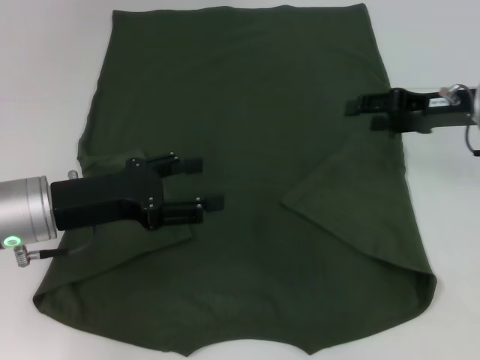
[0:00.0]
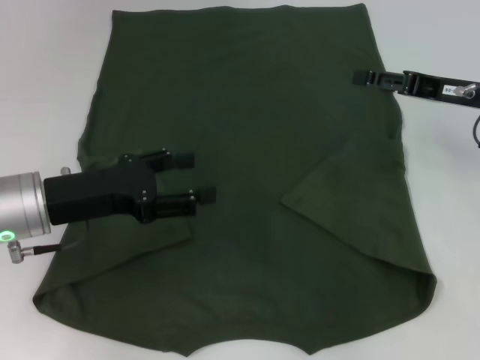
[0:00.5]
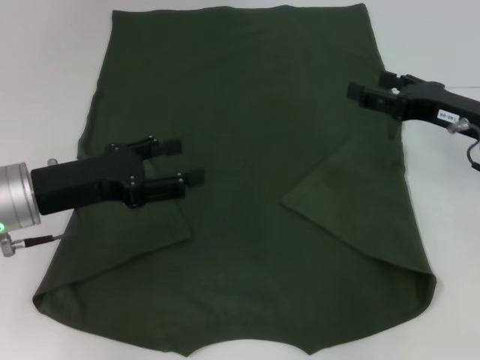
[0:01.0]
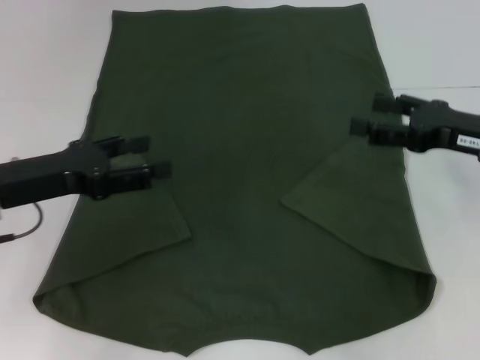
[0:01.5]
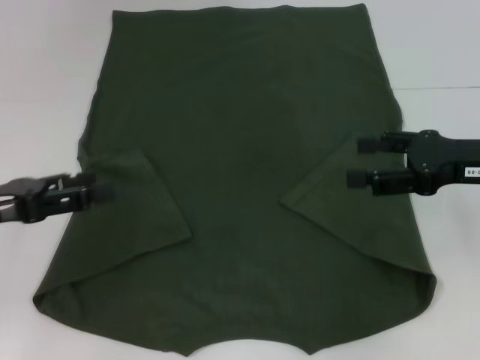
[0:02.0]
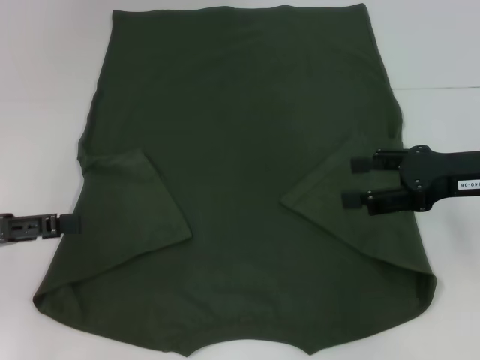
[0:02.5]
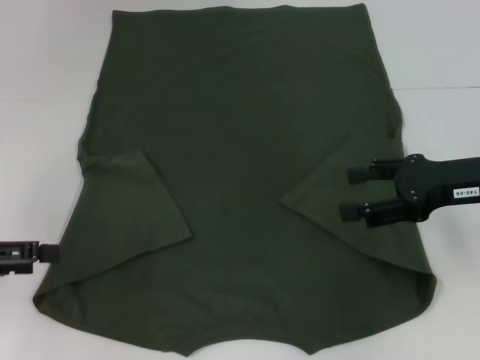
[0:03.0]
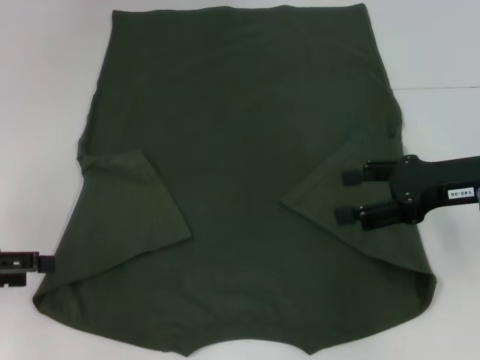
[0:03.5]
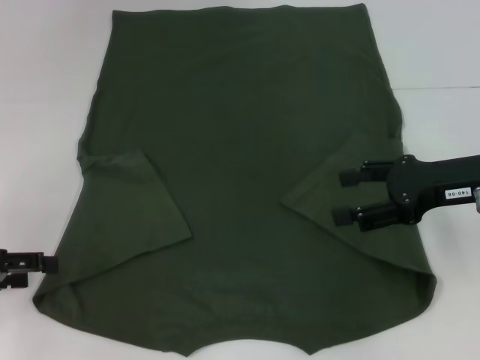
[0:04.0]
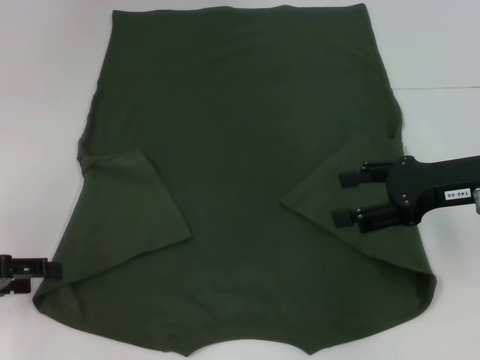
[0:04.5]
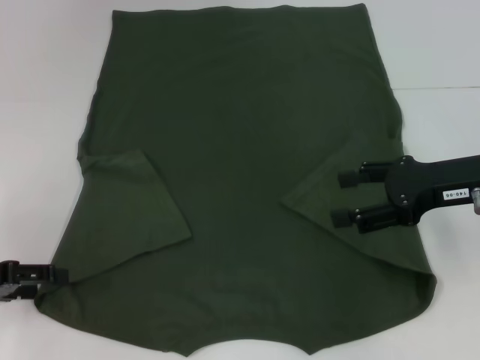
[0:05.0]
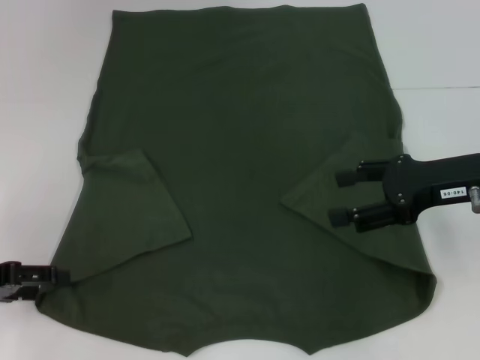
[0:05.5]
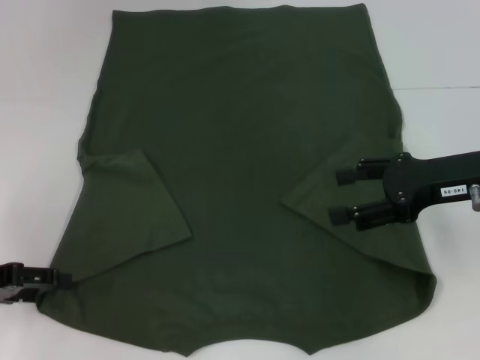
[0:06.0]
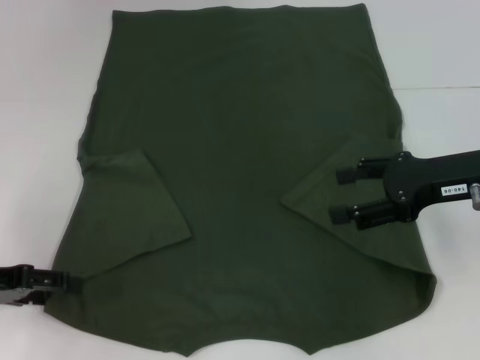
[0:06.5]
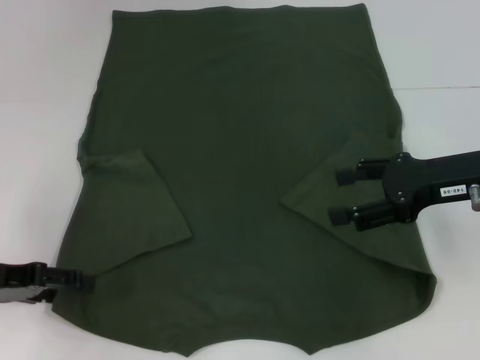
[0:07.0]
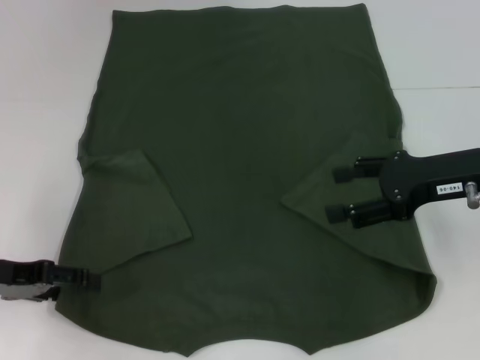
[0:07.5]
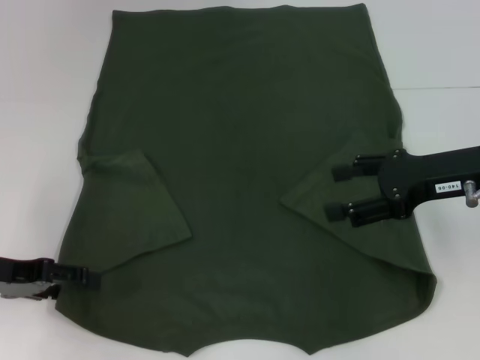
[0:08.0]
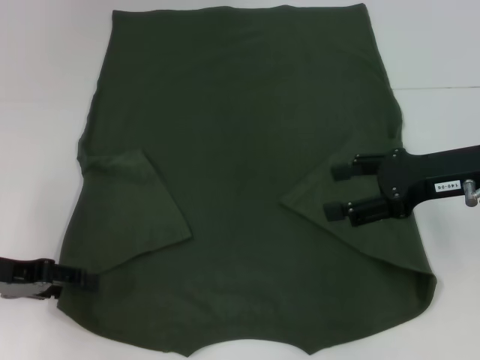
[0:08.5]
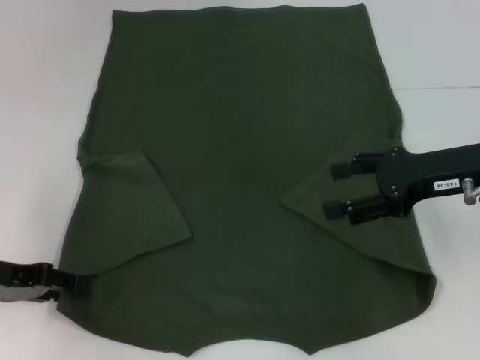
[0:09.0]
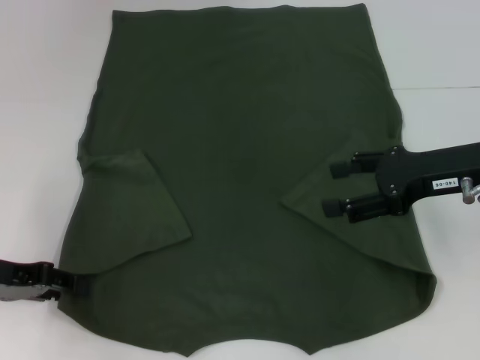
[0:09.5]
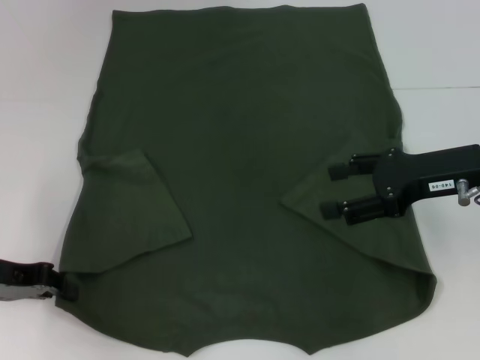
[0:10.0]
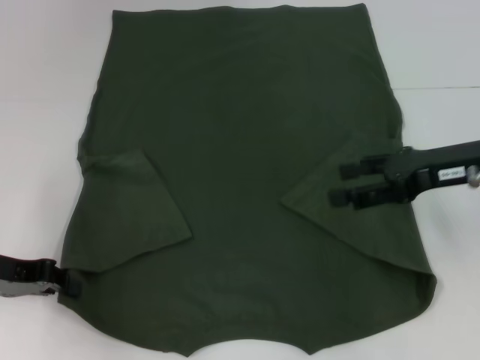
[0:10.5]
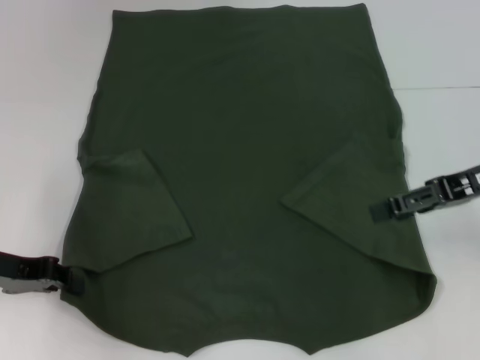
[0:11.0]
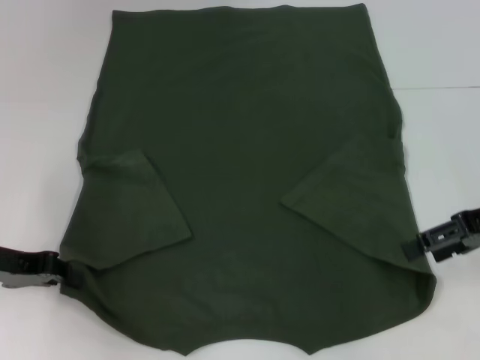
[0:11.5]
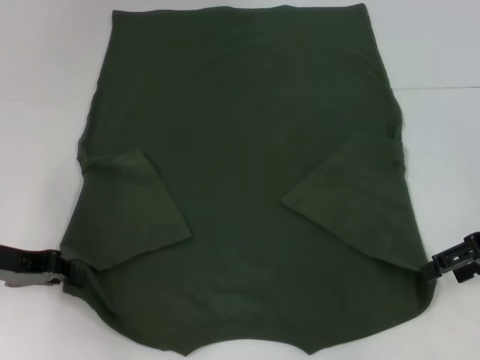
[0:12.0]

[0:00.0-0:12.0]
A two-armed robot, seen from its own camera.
Step, 0:00.0 to 0:02.0: Fold the bottom right sleeve with your right hand.
Step, 0:02.5 to 0:09.5: Grab the bottom left corner with your left hand.
0:00.0 to 0:02.0: The right gripper heads backward, covering roughly 10 cm, and opens its fingers. Meanwhile the left gripper travels to the left by roughly 10 cm.
0:02.0 to 0:04.0: The left gripper moves roughly 5 cm.
0:04.0 to 0:08.0: There are only small adjustments of the grippers.
0:08.0 to 0:10.0: The left gripper closes up.
0:10.0 to 0:12.0: The right gripper travels to the right by roughly 5 cm.

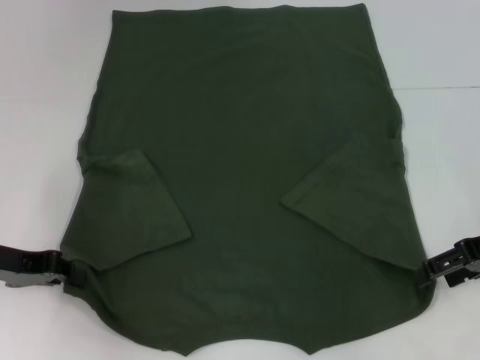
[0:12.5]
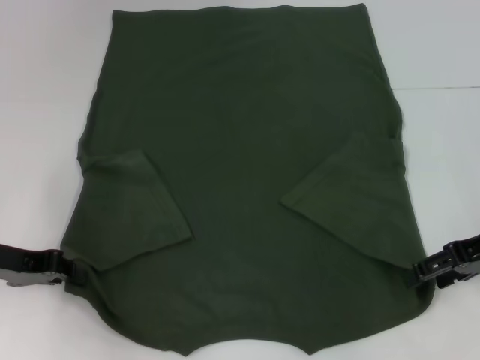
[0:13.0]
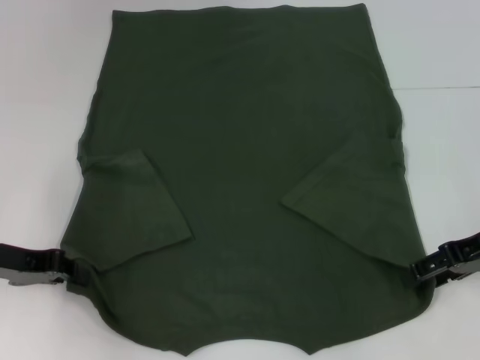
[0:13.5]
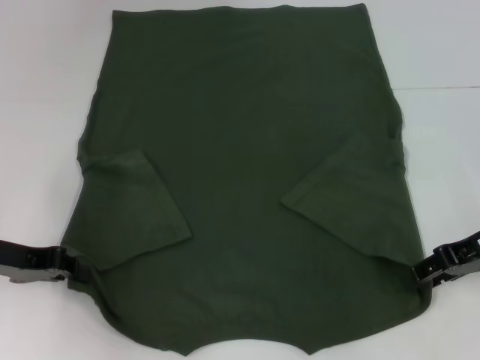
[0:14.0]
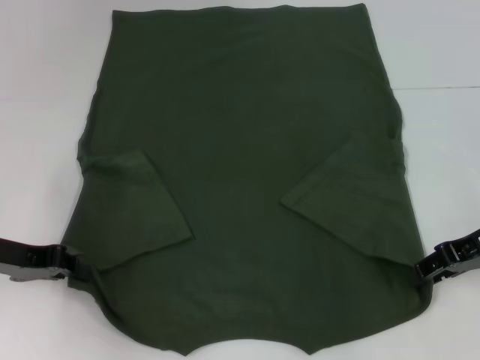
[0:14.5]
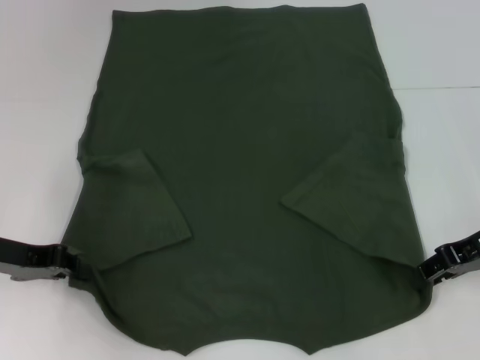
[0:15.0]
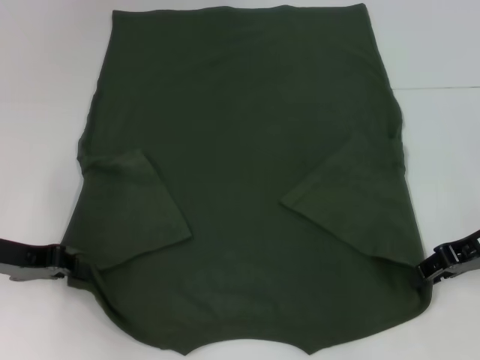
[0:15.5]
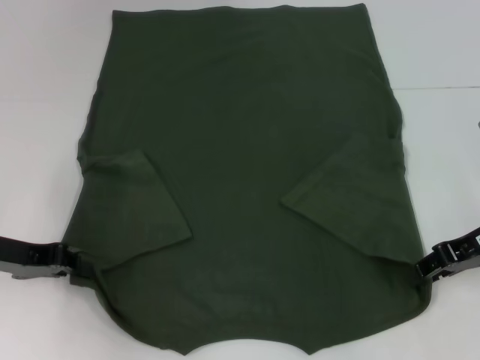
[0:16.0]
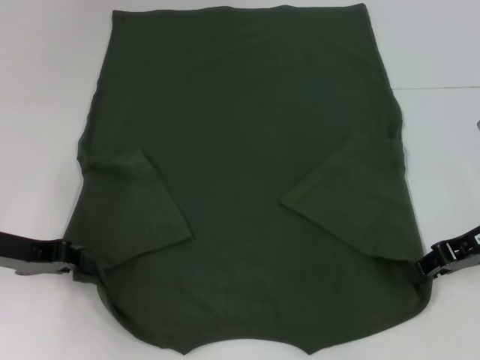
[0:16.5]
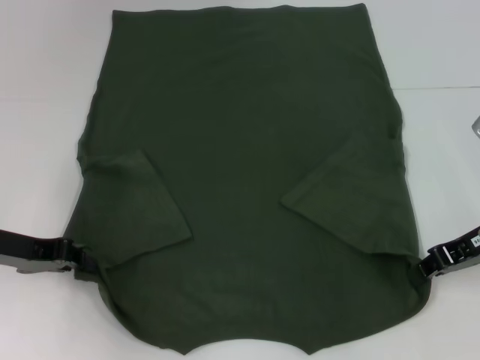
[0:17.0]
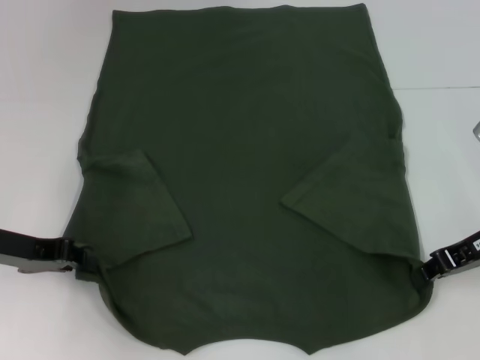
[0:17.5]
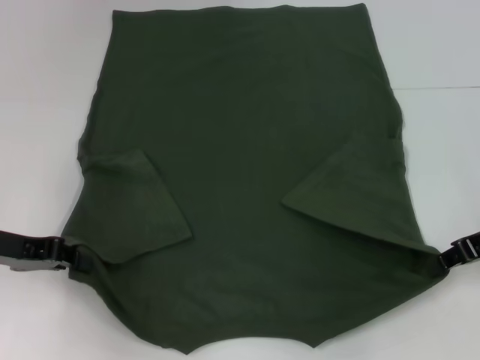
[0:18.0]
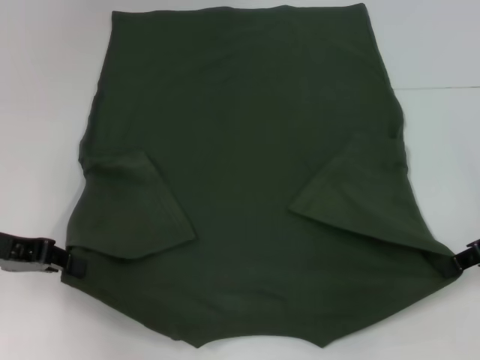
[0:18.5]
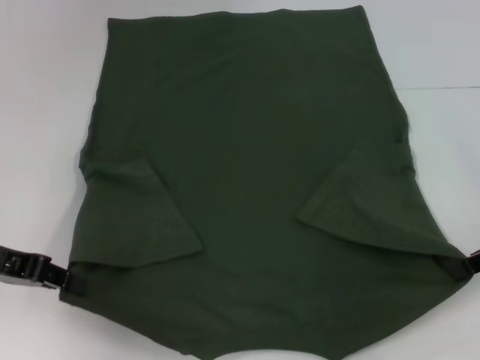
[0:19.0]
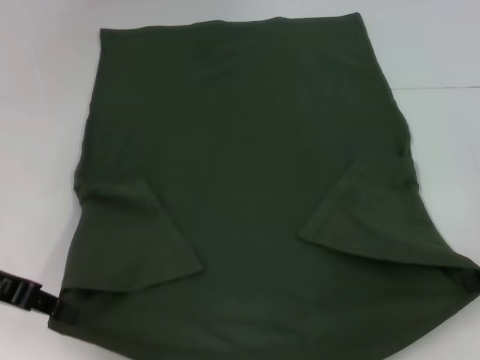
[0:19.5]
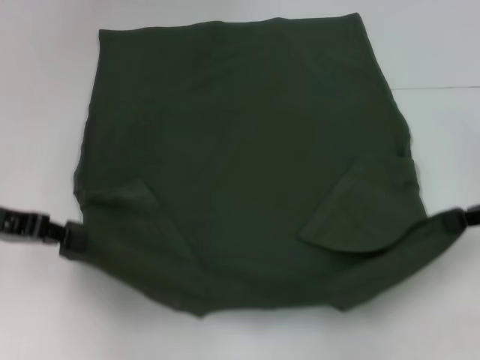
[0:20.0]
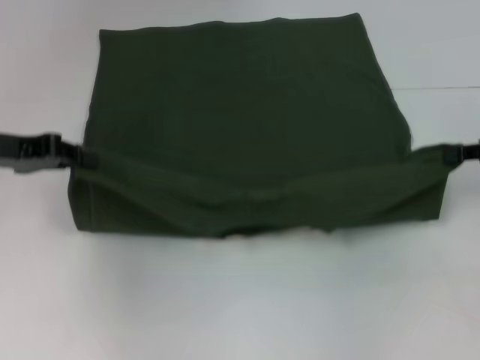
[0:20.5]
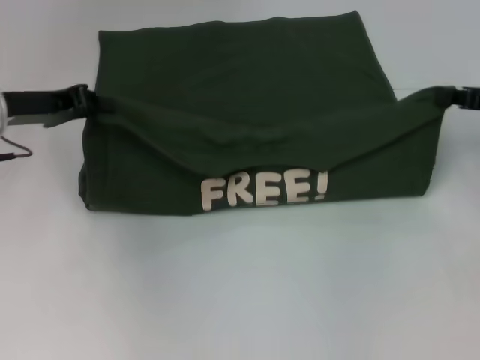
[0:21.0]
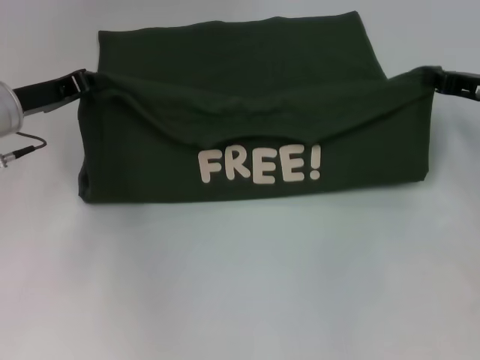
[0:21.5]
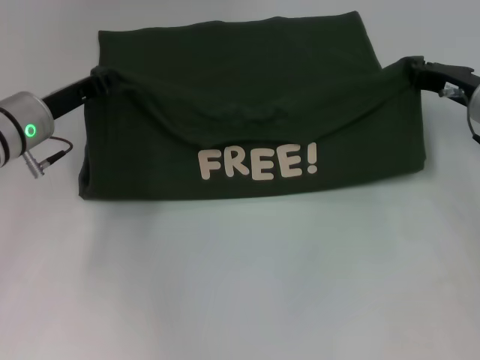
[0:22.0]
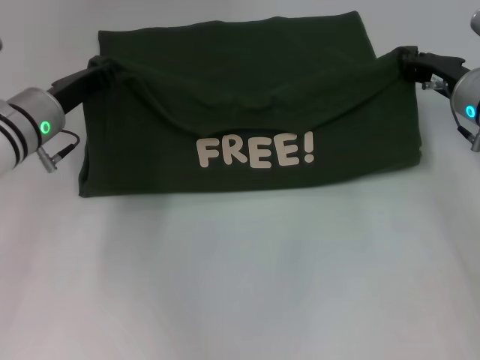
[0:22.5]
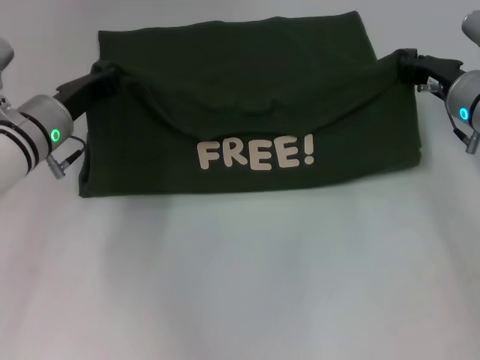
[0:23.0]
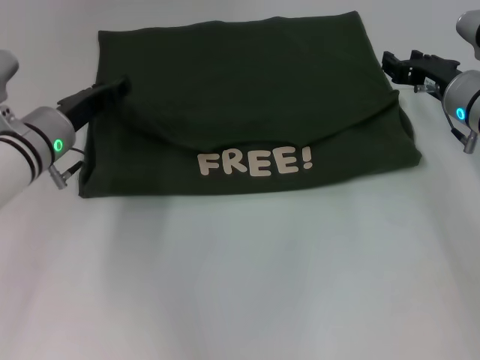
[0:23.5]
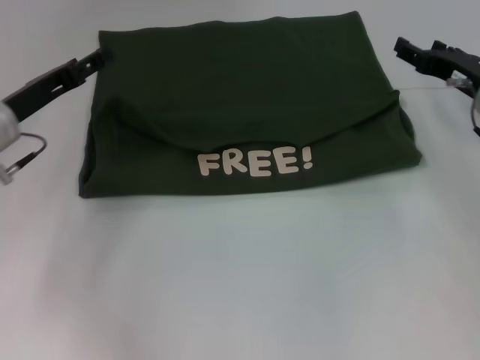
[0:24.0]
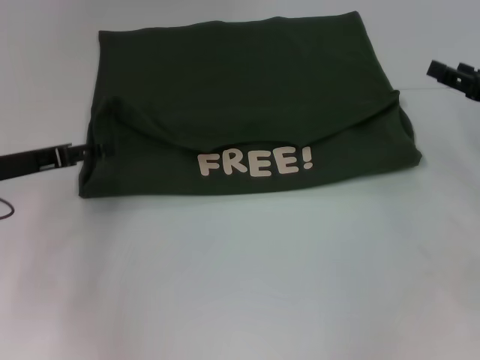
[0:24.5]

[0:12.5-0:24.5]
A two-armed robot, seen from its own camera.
Step, 0:12.5 to 0:18.0: Grab the bottom right corner with your right hand.
Step, 0:18.5 to 0:24.0: Fold the clothes with your left hand.
Step, 0:18.5 to 0:24.0: Fold the clothes with your right hand.
0:12.5 to 0:14.5: The right gripper closes its fingers.
0:14.5 to 0:16.5: Both grippers stay put.
0:16.5 to 0:18.5: The grippers move only a little.
0:18.5 to 0:20.5: The left gripper moves about 5 cm.
0:20.5 to 0:22.5: The left gripper shifts approximately 10 cm to the right, downward and forward; the right gripper shifts approximately 10 cm to the left and forward.
0:22.5 to 0:24.5: The left gripper shifts roughly 10 cm to the left and backward, and opens its fingers; the right gripper goes about 10 cm to the right and backward, and opens.

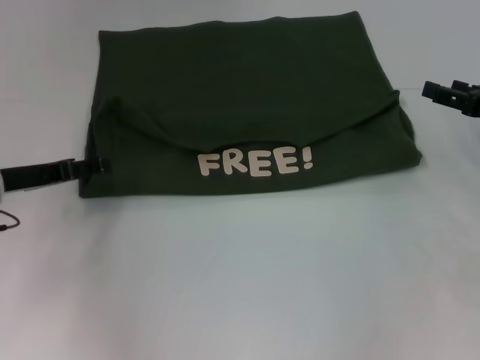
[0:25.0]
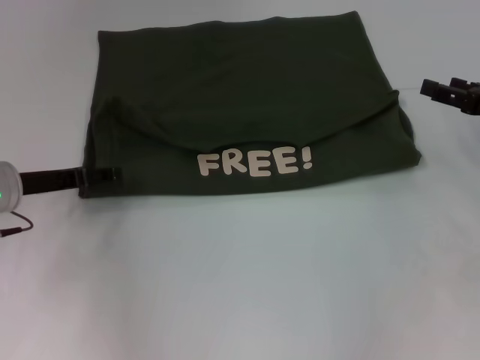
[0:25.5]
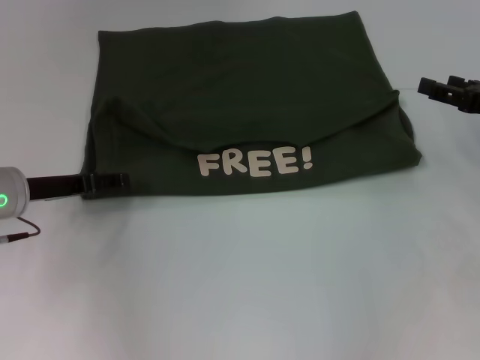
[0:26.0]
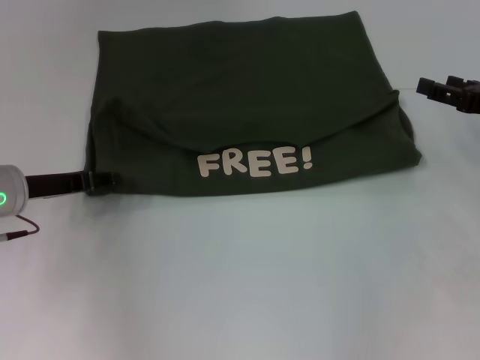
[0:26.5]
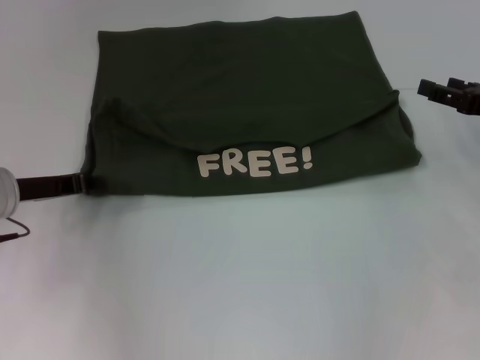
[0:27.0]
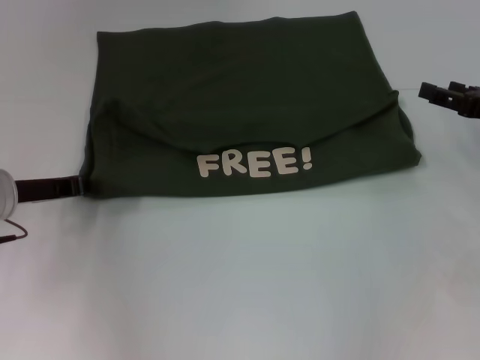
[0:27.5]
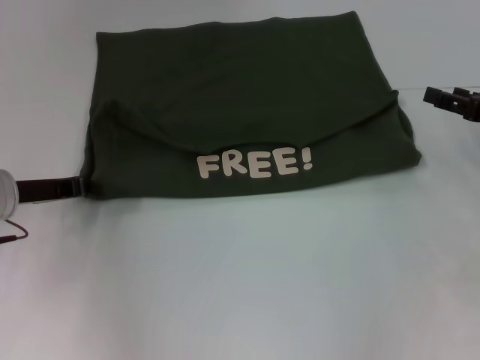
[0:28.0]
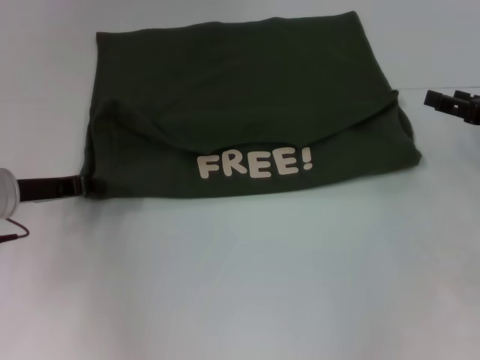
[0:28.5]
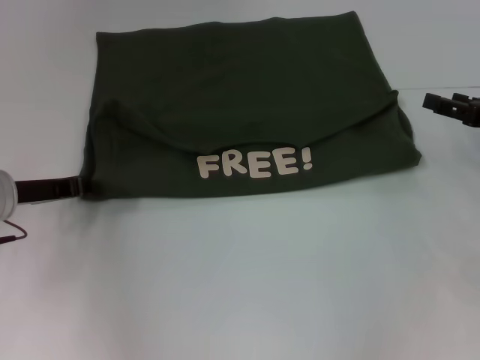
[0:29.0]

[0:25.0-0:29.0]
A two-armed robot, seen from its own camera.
0:25.0 to 0:27.0: The left gripper closes.
0:27.0 to 0:29.0: Both grippers stay about where they are.
